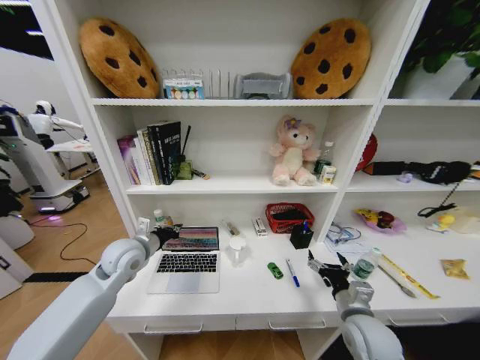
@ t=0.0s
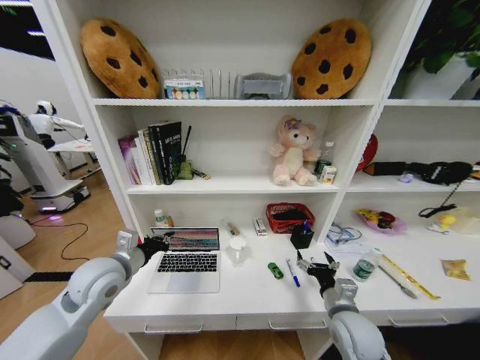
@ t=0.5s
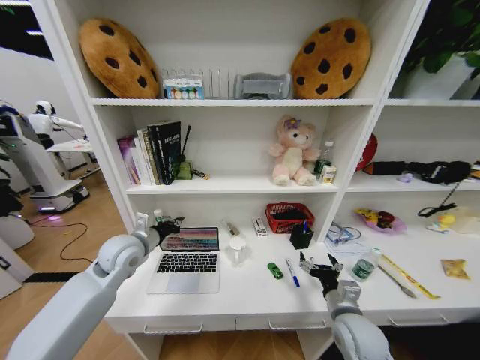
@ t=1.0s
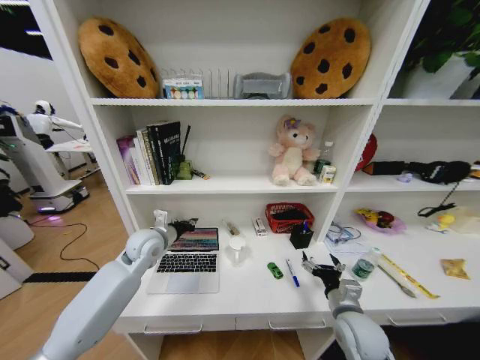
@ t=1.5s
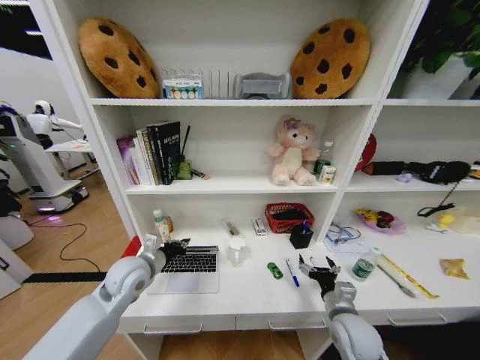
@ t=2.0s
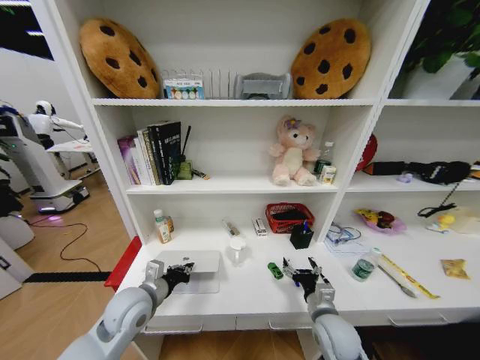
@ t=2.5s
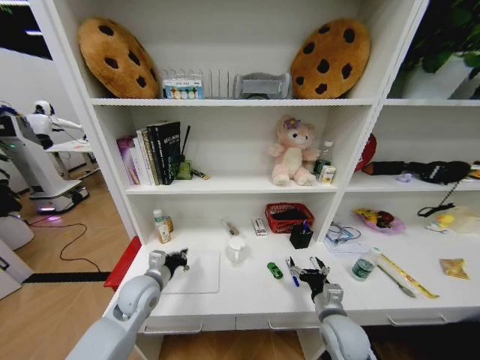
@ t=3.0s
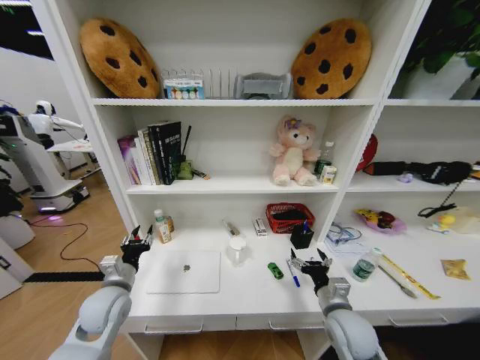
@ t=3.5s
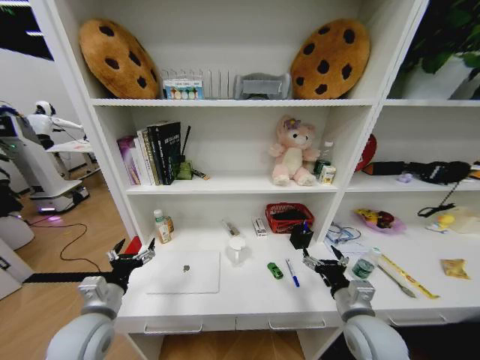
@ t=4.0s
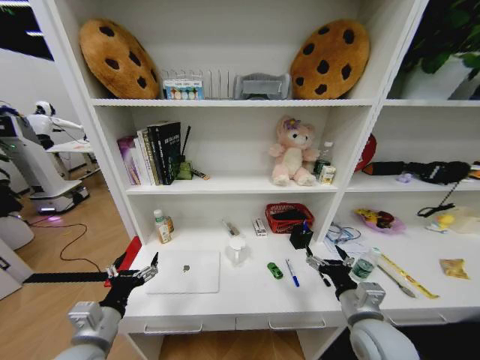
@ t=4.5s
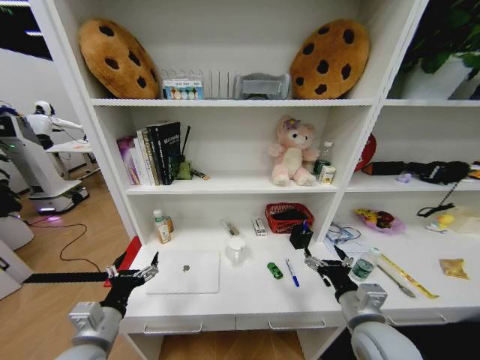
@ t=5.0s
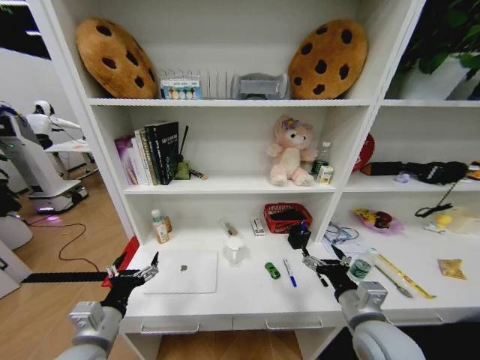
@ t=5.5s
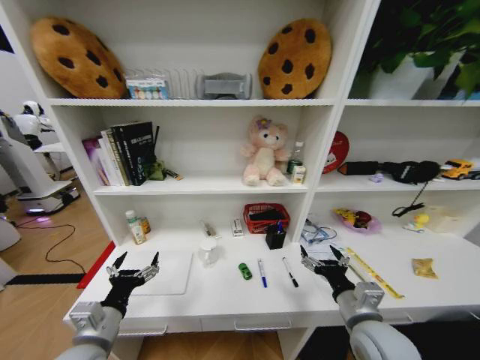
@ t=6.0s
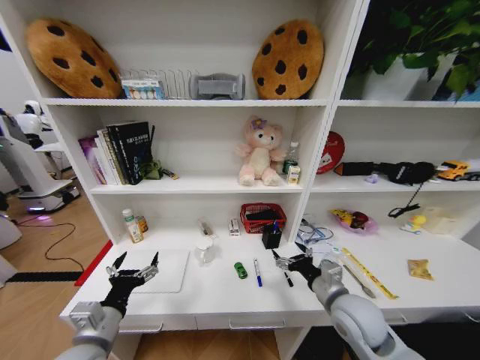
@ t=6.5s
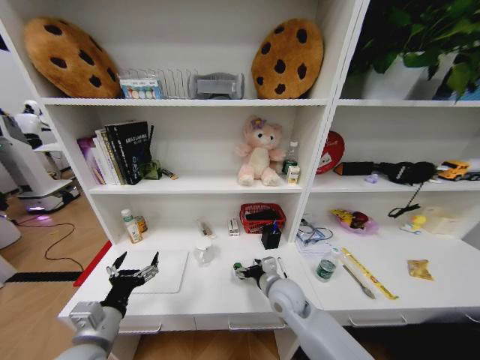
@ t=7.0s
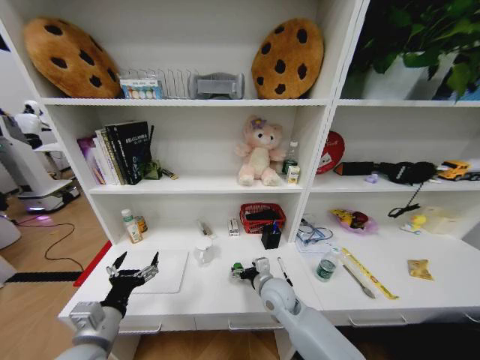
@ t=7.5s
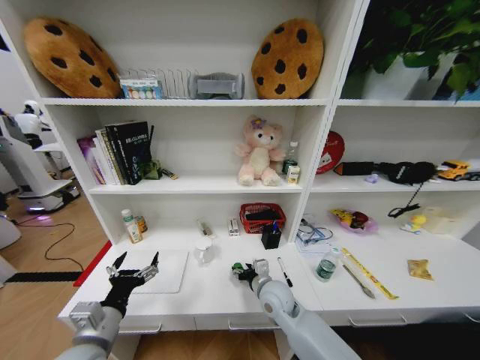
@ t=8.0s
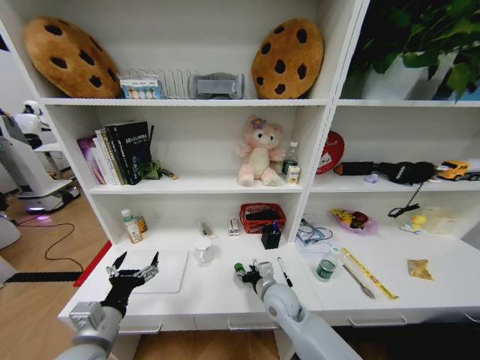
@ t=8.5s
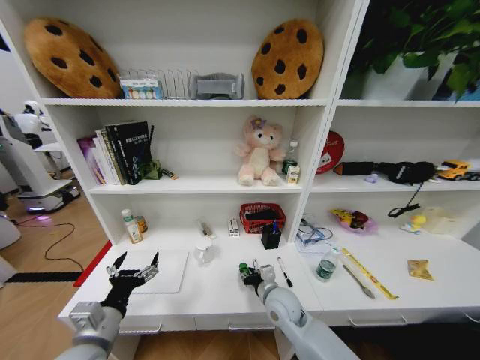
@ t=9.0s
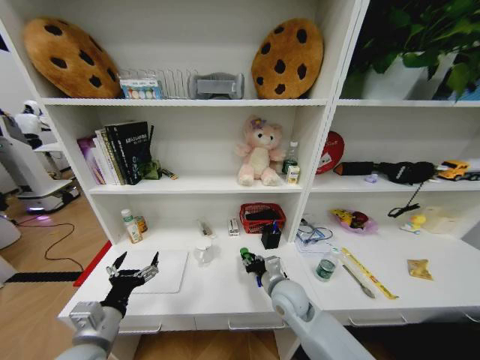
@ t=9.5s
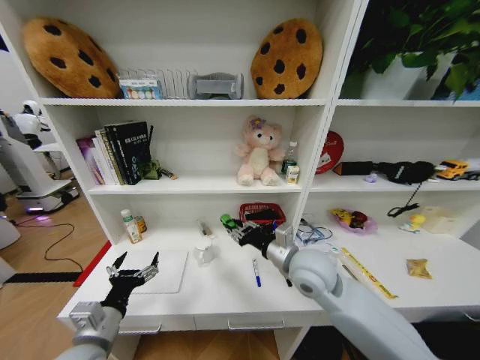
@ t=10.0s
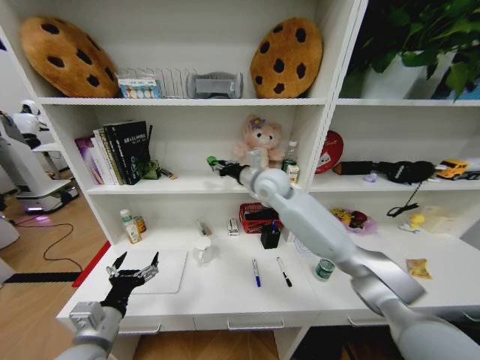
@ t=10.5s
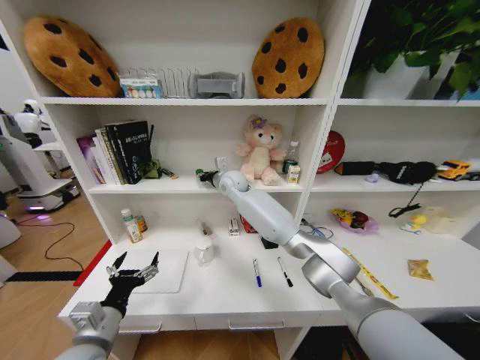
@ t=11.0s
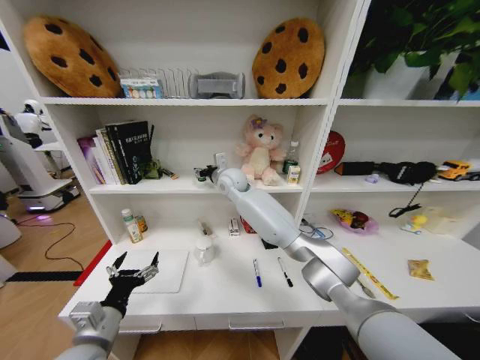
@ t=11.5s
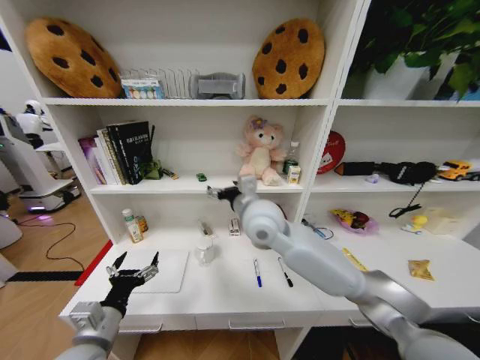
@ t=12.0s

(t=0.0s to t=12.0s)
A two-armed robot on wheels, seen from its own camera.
Task of the whole recording: Organize the objects on the table.
t=0.0s - t=2.0s: The left gripper moves forward and backward over about 10 cm, changing direction 2 times.
t=2.0s - t=4.0s: The left gripper goes forward and backward, approximately 10 cm each way, reversing 2 times, and opens. Meanwhile the right gripper goes roughly 5 cm upward.
t=4.0s - t=6.0s: The left gripper goes approximately 5 cm backward.
t=6.0s - t=8.0s: The right gripper heads to the left, forward and downward, covering some 20 cm.
t=8.0s - t=10.0s: The right gripper shifts some 15 cm upward, and closes.
t=10.0s - t=12.0s: The right gripper goes approximately 15 cm to the left and upward, reaches about 30 cm forward, then returns, and opens its fingers.

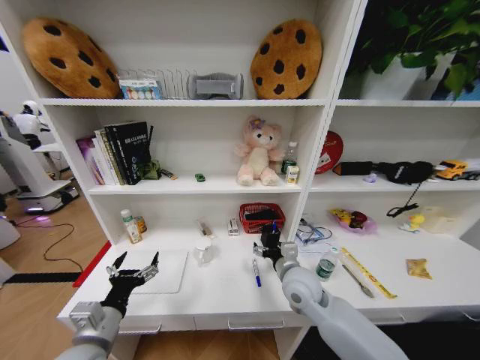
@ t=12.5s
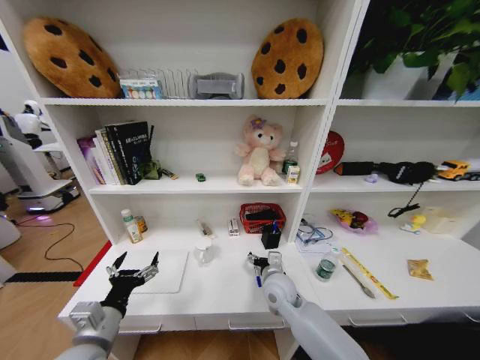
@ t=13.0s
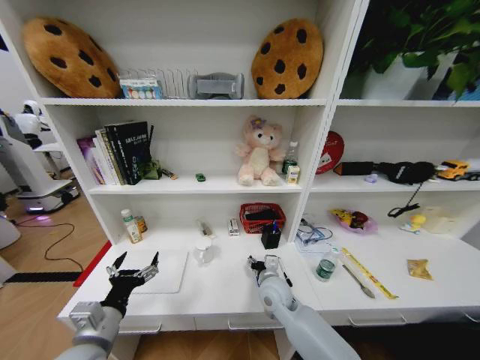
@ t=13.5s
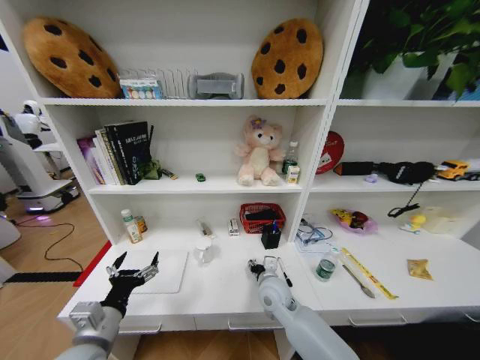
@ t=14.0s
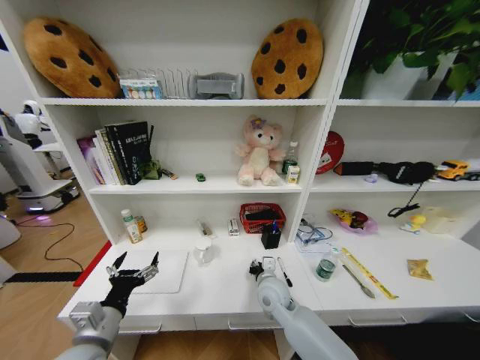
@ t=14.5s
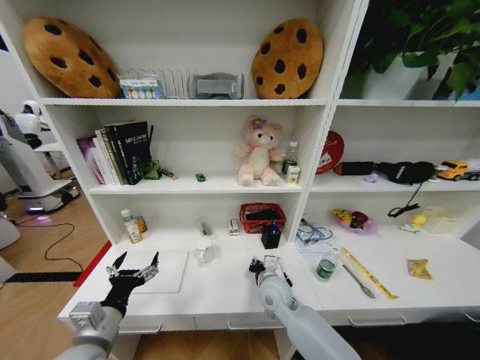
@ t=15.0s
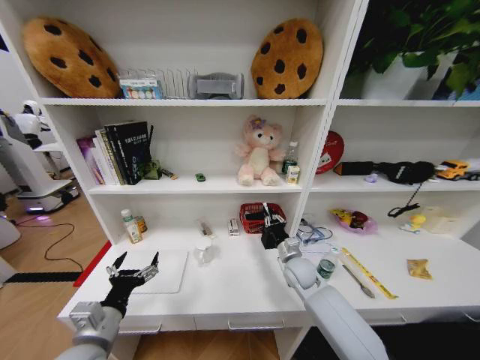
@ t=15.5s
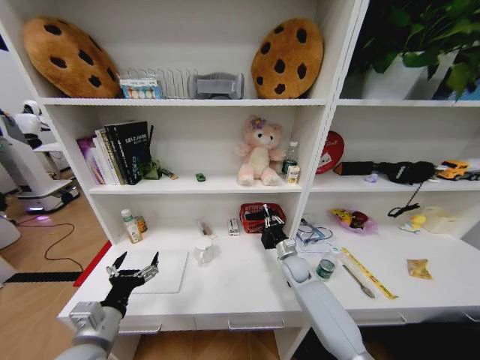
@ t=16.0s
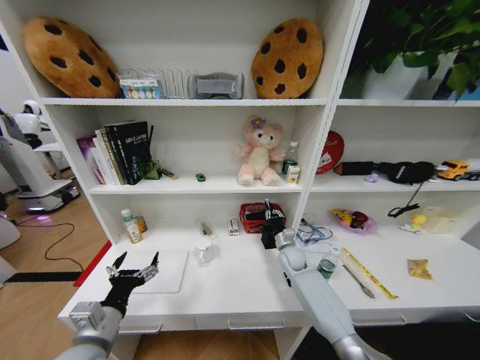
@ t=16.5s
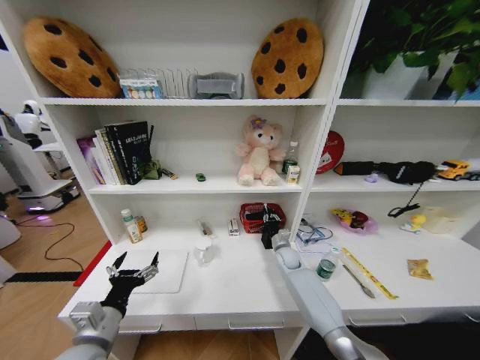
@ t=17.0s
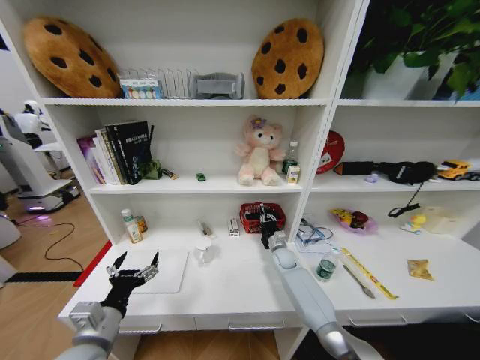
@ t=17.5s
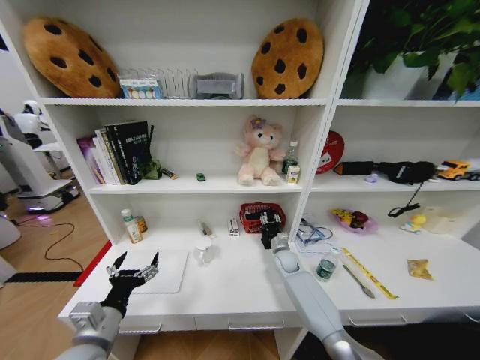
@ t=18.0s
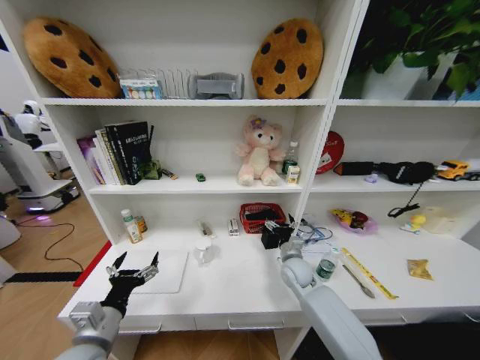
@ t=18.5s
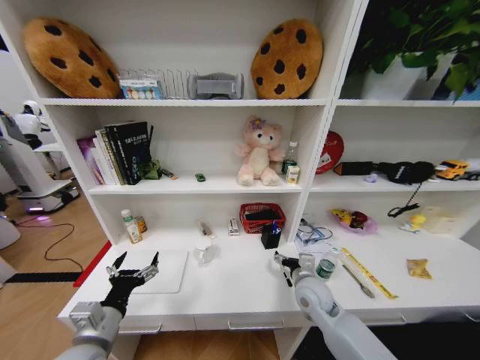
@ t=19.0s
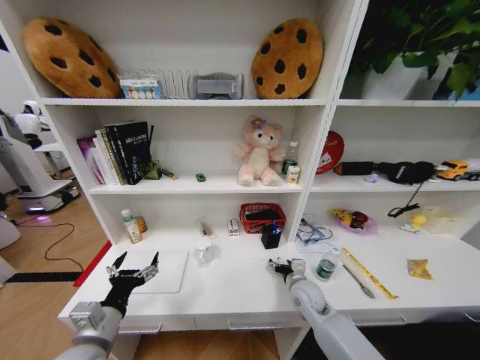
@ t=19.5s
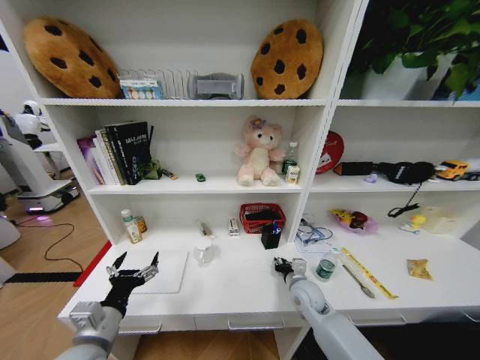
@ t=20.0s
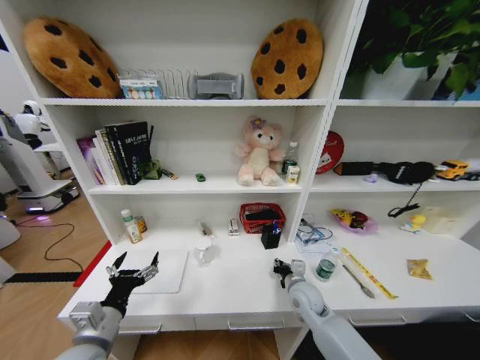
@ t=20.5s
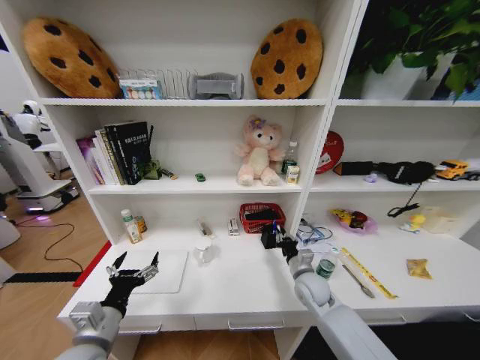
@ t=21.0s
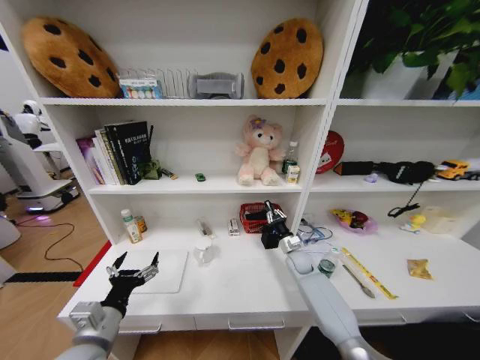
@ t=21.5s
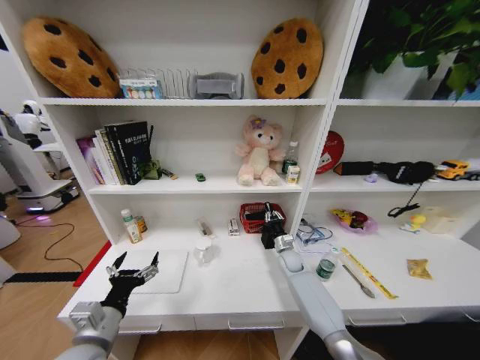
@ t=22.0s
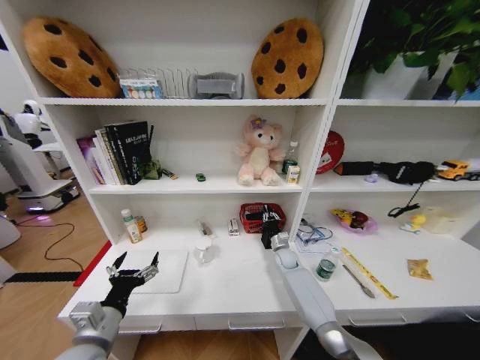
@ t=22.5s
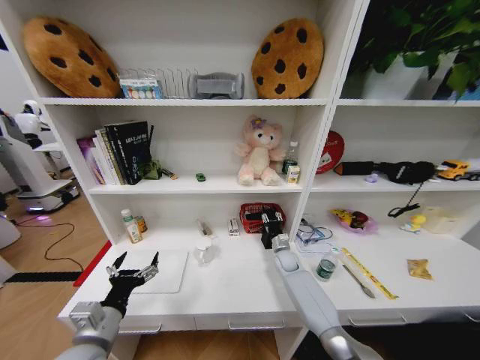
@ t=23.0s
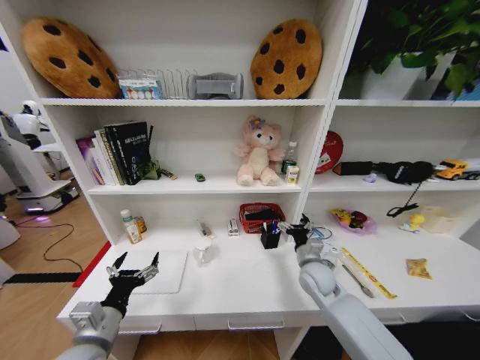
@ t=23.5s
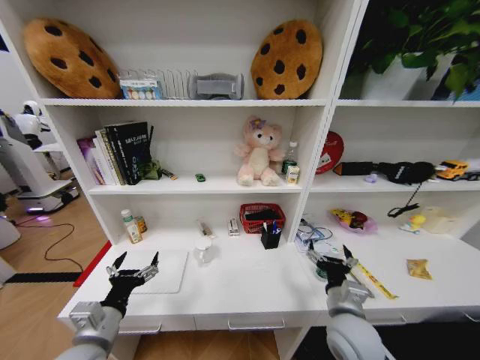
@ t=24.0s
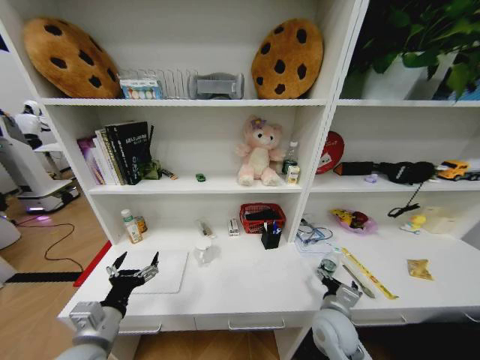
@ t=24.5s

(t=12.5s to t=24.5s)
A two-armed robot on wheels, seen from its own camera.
Task of the whole recording: Organize the objects on the table.
t=12.5s - t=14.5s: The right gripper moves downward and to the left, approximately 10 cm, and closes up.
t=14.5s - t=16.5s: The right gripper heads forward and to the right, covering approximately 20 cm.
t=16.5s - t=18.5s: The right gripper shifts approximately 5 cm backward, and opens.
t=18.5s - t=20.5s: The right gripper travels backward by approximately 5 cm, and closes.
t=20.5s - t=22.5s: The right gripper is displaced forward by roughly 15 cm.
t=22.5s - t=24.5s: The right gripper is displaced backward by approximately 25 cm, and opens up.

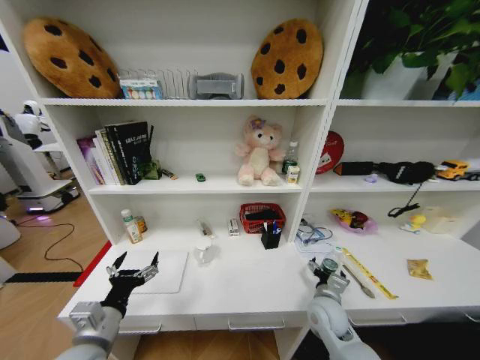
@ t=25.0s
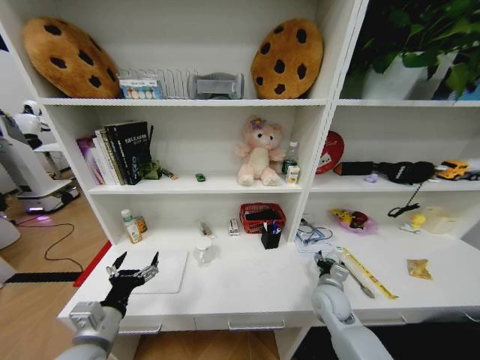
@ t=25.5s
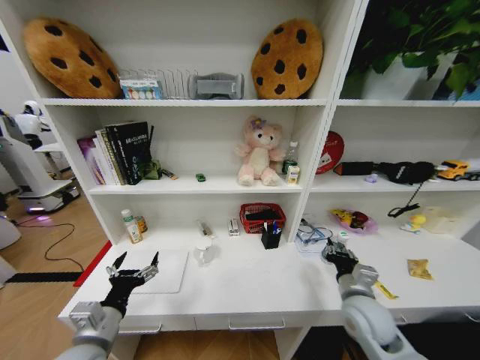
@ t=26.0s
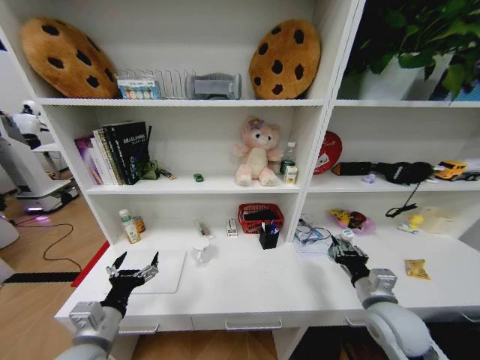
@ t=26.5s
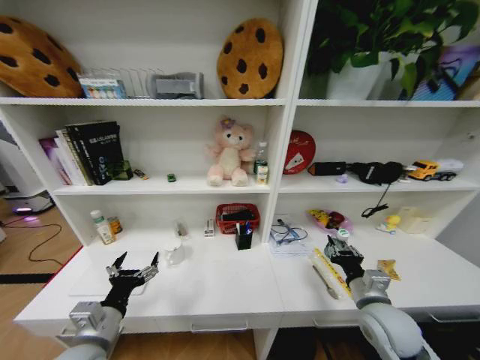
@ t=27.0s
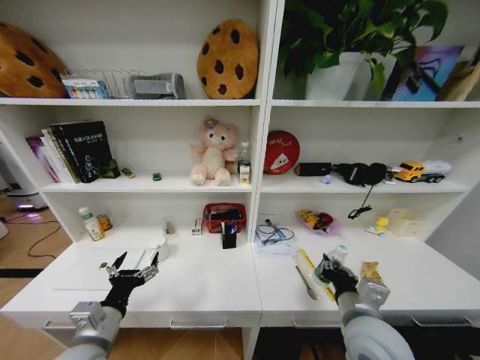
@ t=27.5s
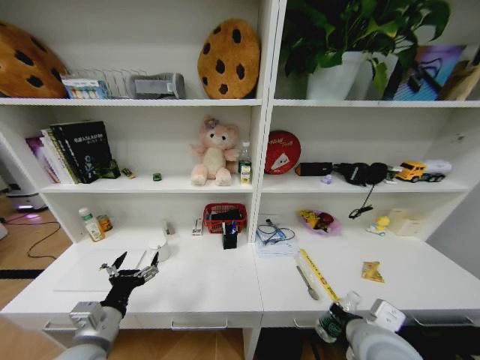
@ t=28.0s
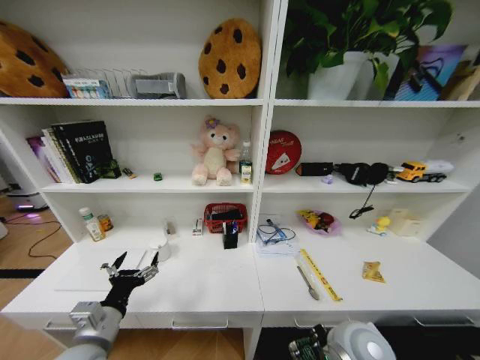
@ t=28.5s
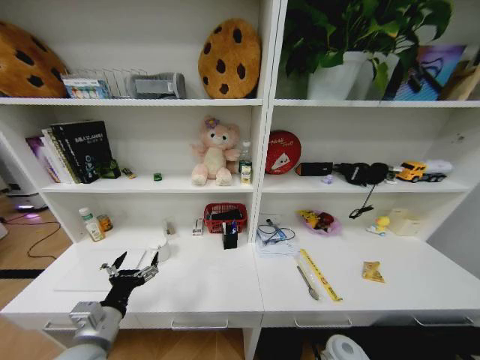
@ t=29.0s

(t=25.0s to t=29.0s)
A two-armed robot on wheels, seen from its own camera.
Task of the whole recording: Organize the objects on the table.
t=25.0s - t=27.0s: The right gripper is displaced upward and to the right by some 10 cm, and closes.
t=27.0s - t=29.0s: The right gripper shifts approximately 15 cm downward.
